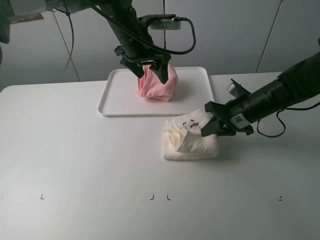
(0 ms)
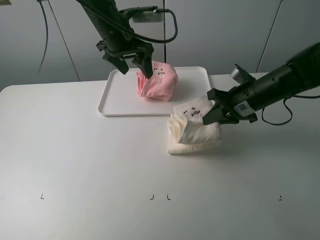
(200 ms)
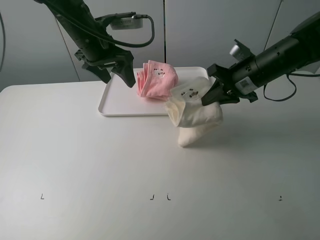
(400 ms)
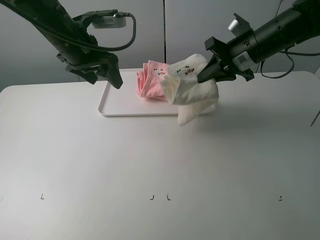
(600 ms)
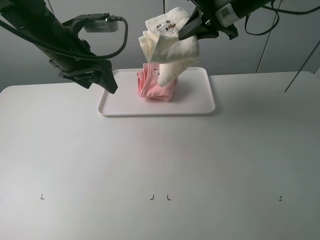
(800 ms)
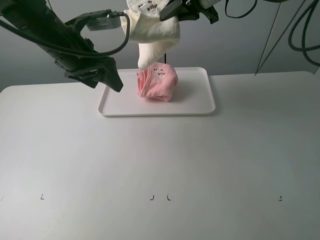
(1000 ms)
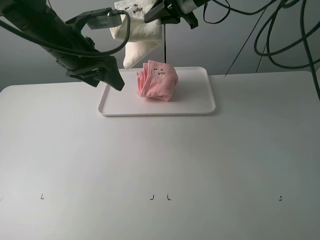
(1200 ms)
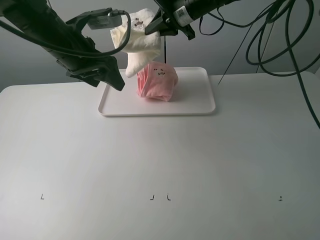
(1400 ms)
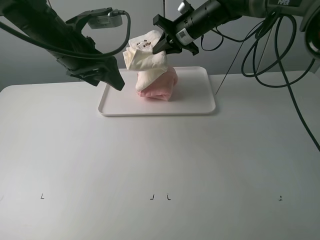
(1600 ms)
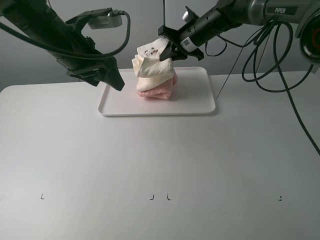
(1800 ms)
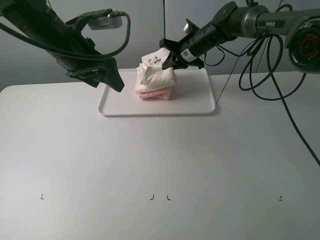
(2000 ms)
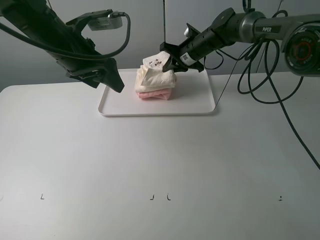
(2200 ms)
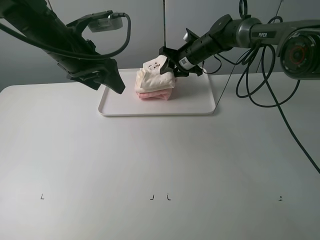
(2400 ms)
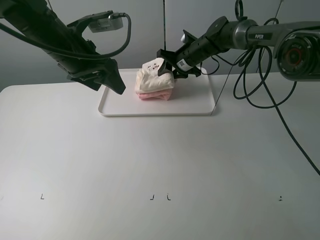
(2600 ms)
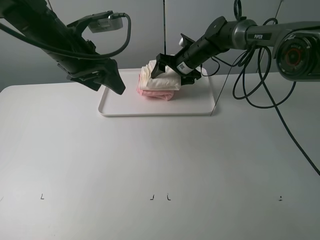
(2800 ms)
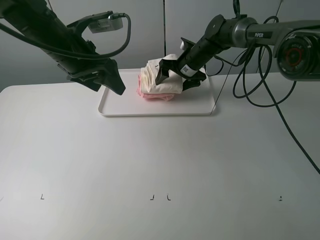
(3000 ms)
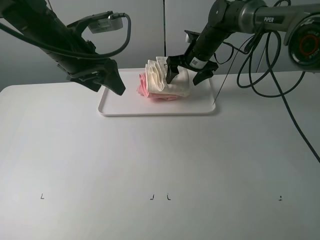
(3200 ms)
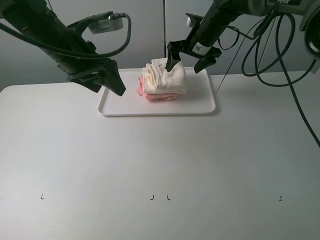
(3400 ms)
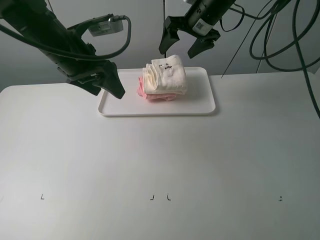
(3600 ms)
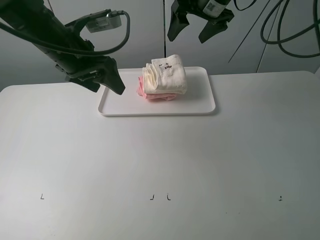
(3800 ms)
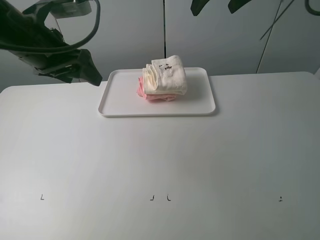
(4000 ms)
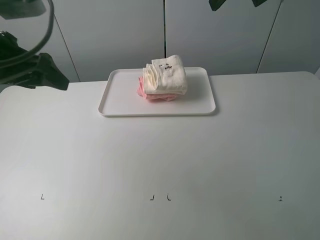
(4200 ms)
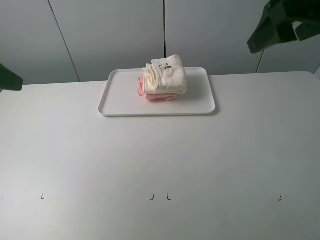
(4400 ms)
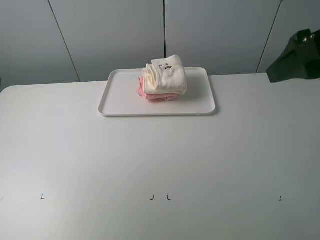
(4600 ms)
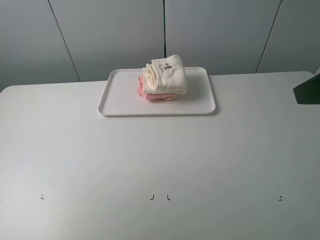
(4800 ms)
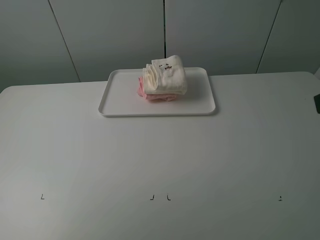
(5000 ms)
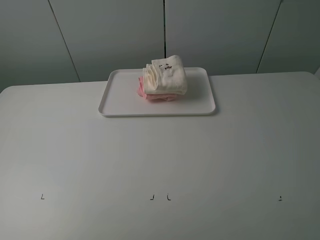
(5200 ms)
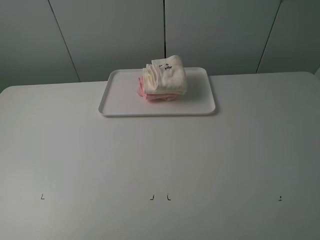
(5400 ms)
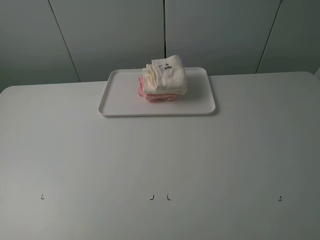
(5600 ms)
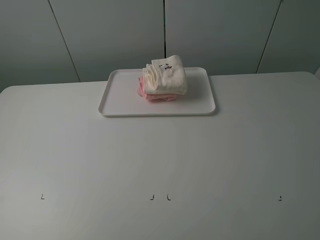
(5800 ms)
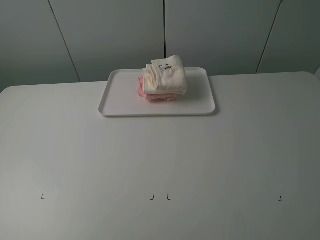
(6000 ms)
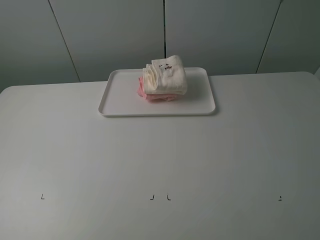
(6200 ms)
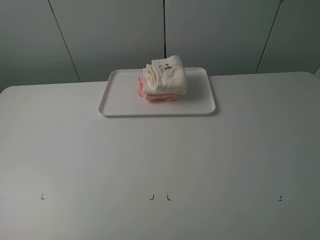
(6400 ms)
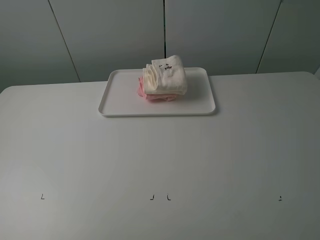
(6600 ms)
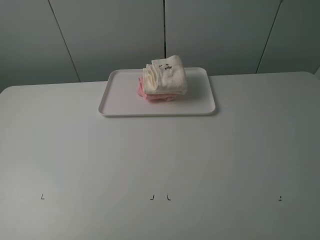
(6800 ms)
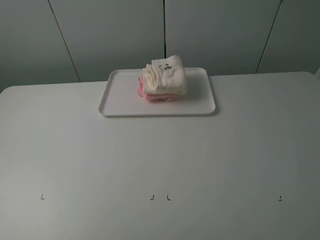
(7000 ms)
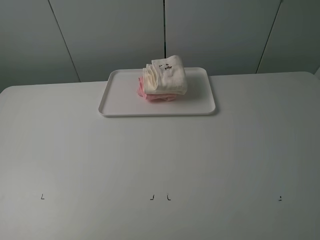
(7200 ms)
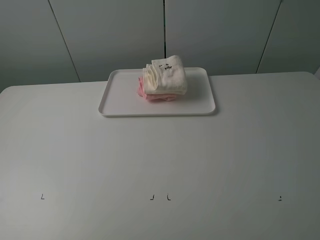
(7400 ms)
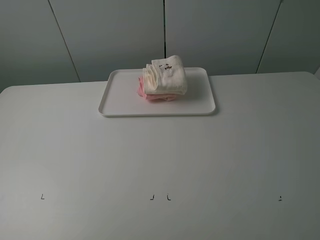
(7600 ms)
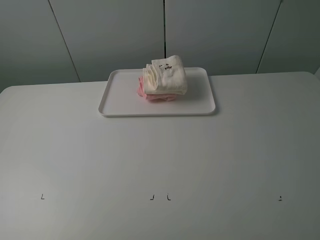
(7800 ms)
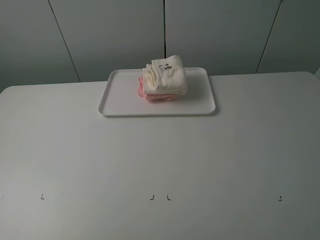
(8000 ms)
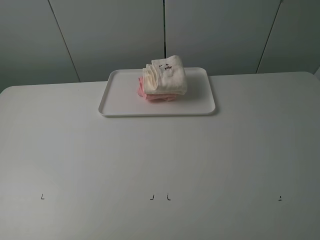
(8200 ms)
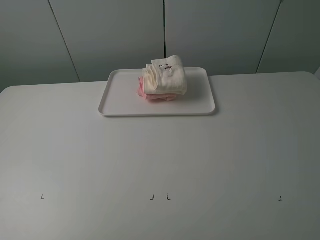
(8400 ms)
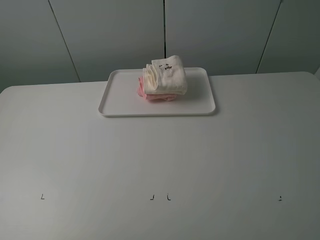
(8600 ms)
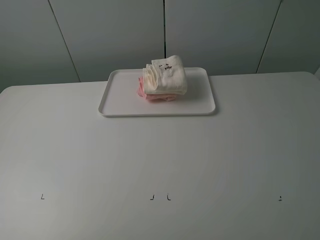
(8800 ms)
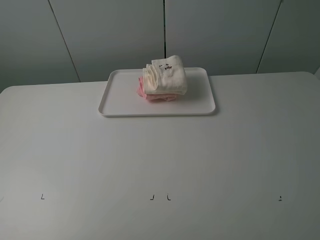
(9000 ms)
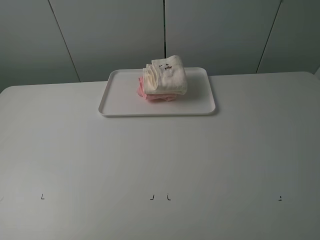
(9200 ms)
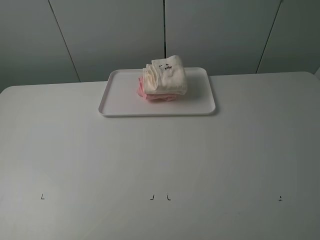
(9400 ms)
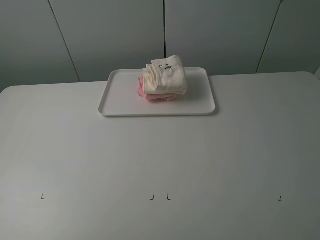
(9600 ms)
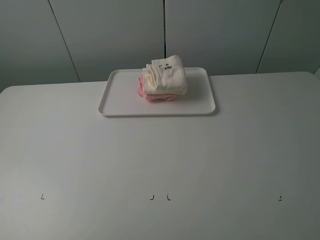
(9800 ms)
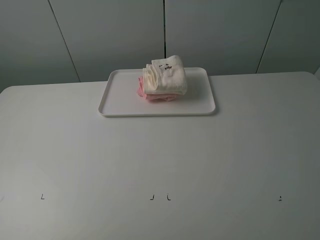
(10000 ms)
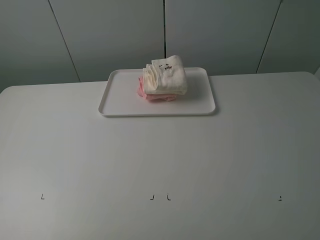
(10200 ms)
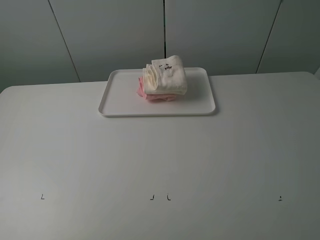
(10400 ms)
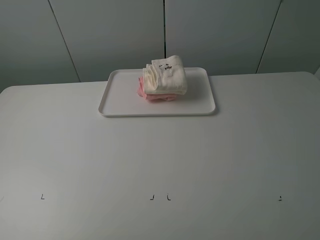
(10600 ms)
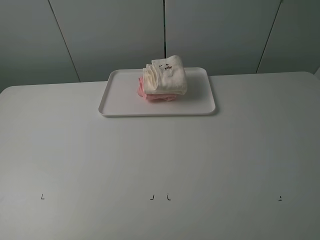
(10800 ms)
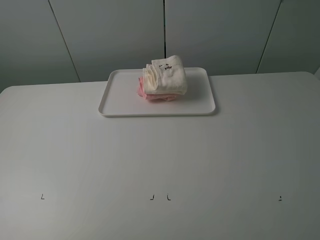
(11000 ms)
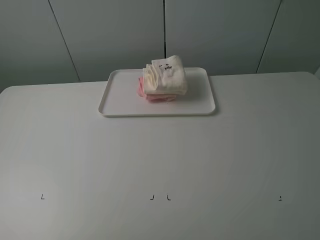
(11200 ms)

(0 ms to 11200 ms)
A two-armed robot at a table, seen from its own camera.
Task of the whole recording: fold one of the towels by two grippers and place it on the tray,then fold another towel by two grippers and place it on the folded towel.
Step, 0 ms - 3400 ms: Place the white towel on the pink towel with the right gripper.
0 ms - 1600 ms: The left gripper goes roughly 15 cm to the left and backward, while the right gripper heads forward, to the left and upward, covering some 25 cm.
1600 ms - 3200 ms: The right gripper opens its fingers.
3200 ms - 4800 ms: The right gripper moves backward and upward, about 40 cm, while the left gripper heads backward, to the left and upward, covering approximately 25 cm.
4800 ms - 6400 ms: Both grippers travel together backward and downward, roughly 15 cm.
8000 ms - 9600 ms: Both grippers stay put.
9600 ms - 11200 ms: Neither gripper changes place.

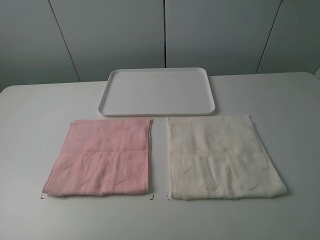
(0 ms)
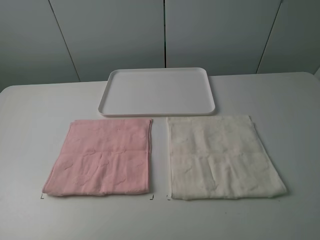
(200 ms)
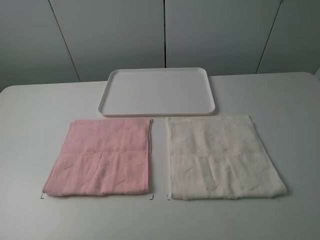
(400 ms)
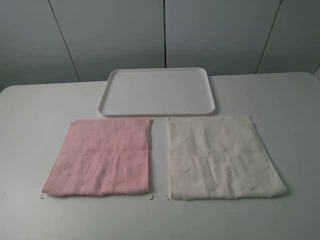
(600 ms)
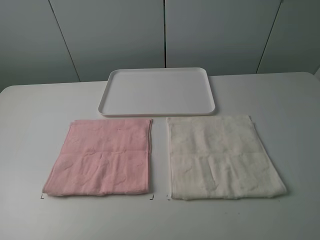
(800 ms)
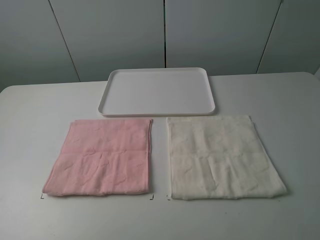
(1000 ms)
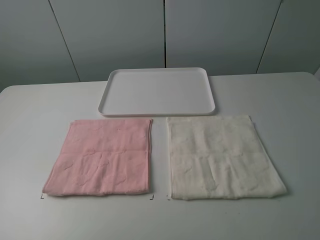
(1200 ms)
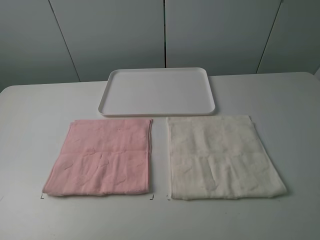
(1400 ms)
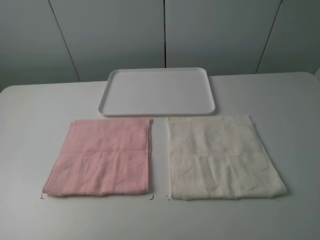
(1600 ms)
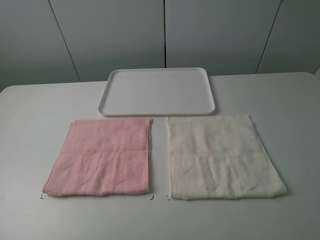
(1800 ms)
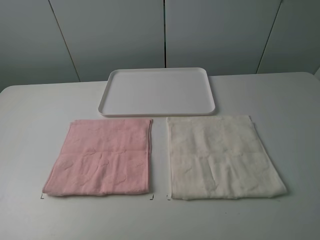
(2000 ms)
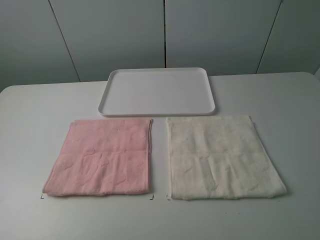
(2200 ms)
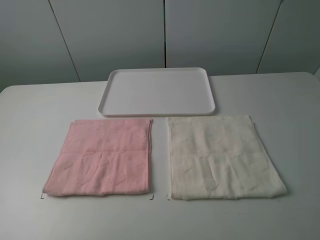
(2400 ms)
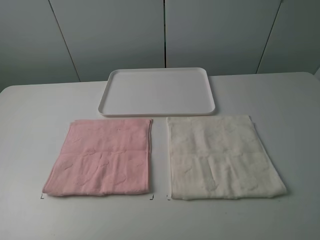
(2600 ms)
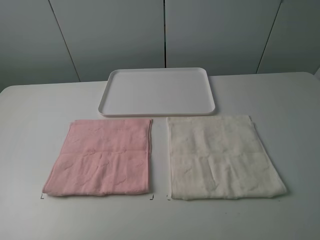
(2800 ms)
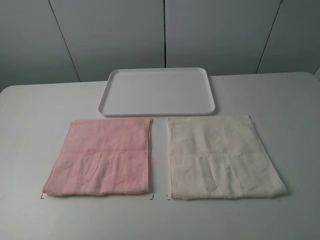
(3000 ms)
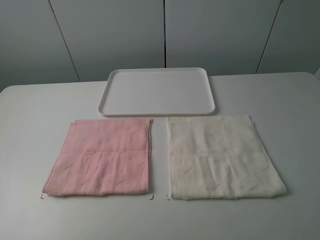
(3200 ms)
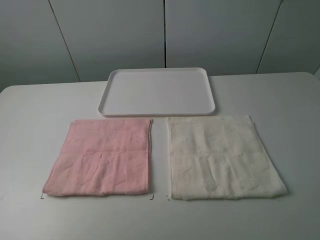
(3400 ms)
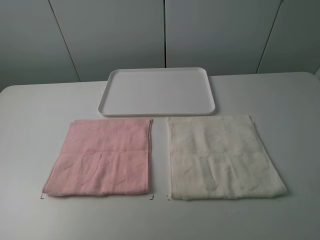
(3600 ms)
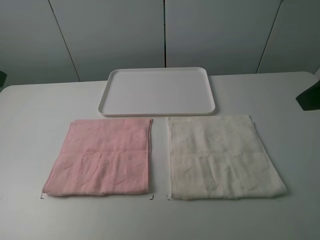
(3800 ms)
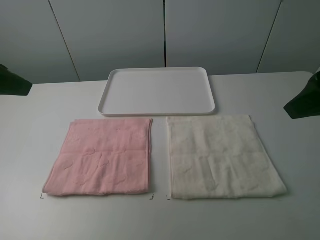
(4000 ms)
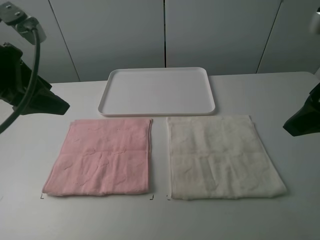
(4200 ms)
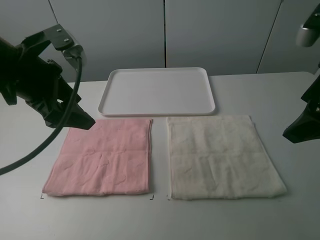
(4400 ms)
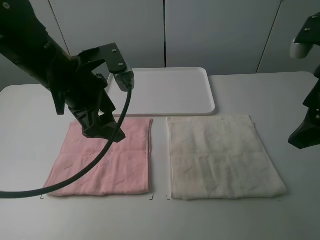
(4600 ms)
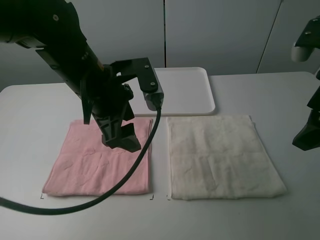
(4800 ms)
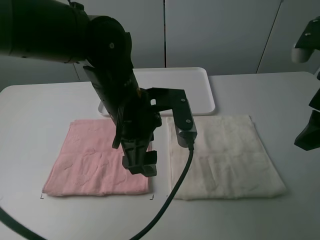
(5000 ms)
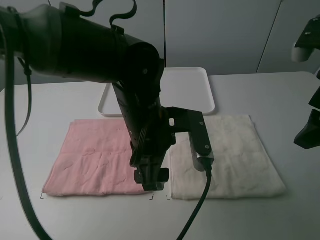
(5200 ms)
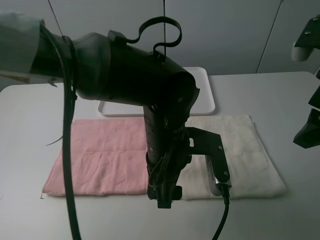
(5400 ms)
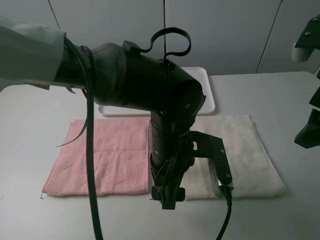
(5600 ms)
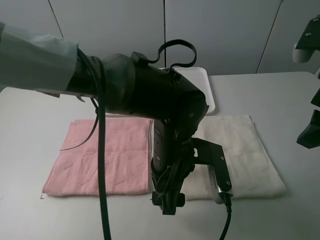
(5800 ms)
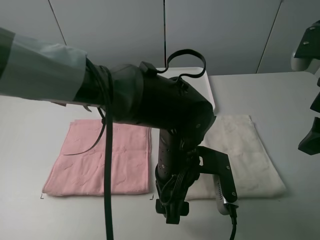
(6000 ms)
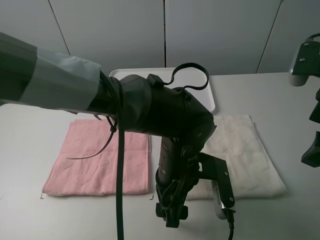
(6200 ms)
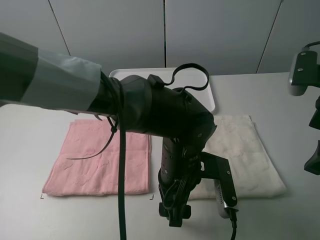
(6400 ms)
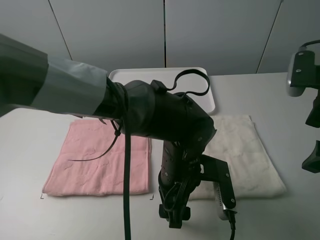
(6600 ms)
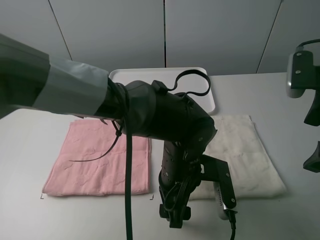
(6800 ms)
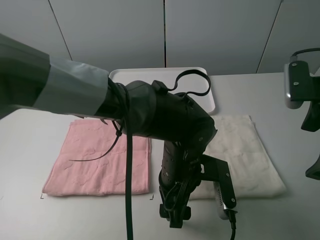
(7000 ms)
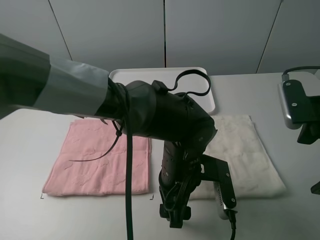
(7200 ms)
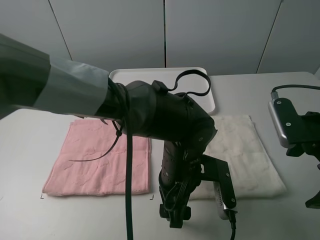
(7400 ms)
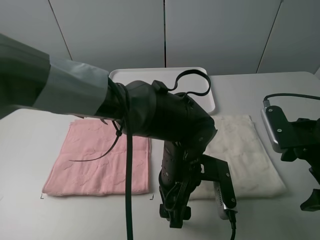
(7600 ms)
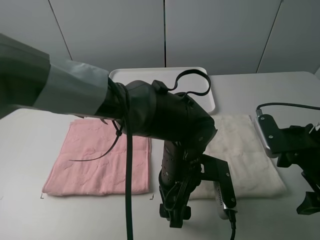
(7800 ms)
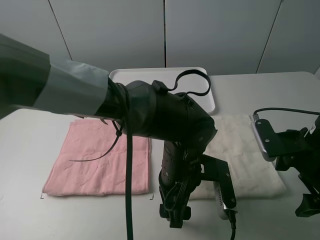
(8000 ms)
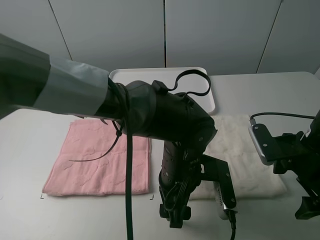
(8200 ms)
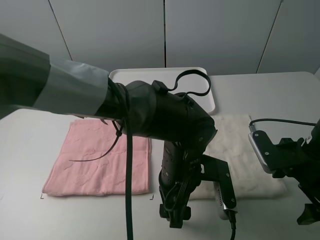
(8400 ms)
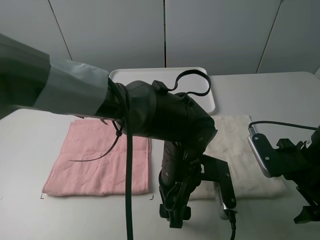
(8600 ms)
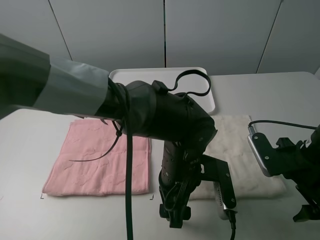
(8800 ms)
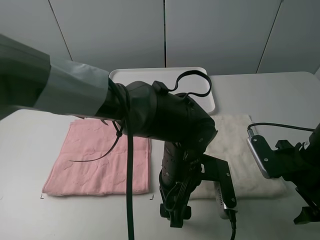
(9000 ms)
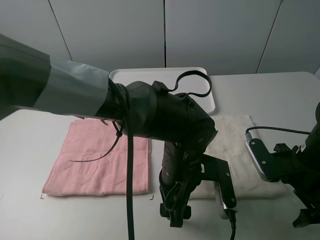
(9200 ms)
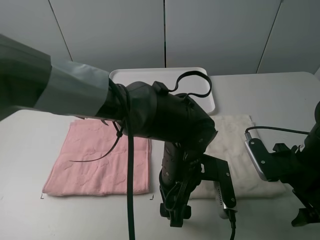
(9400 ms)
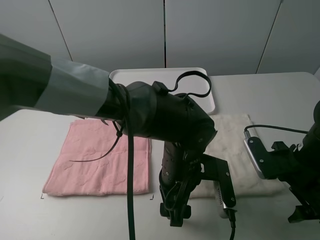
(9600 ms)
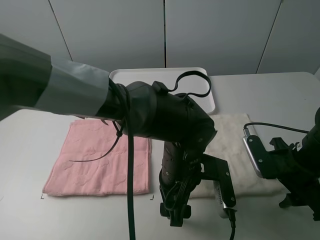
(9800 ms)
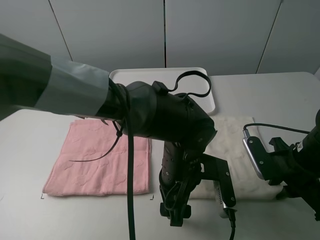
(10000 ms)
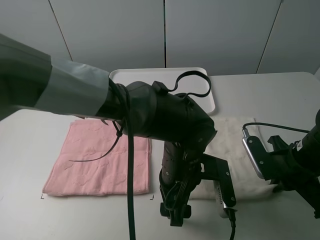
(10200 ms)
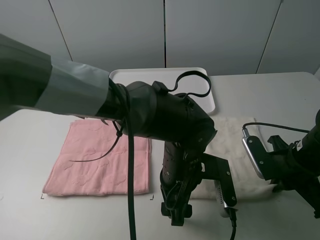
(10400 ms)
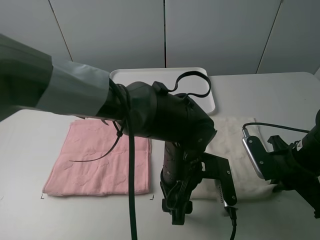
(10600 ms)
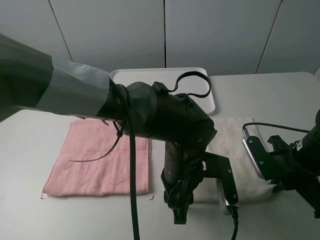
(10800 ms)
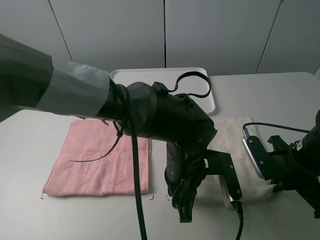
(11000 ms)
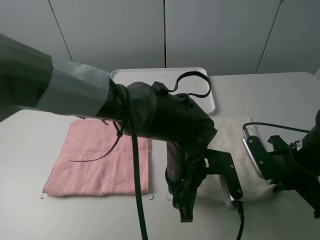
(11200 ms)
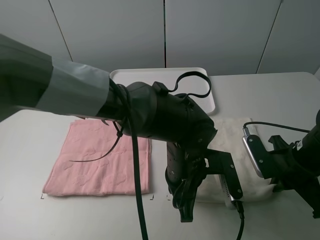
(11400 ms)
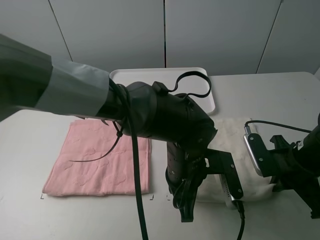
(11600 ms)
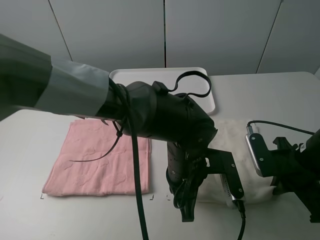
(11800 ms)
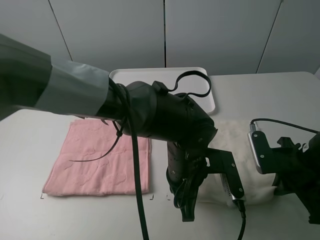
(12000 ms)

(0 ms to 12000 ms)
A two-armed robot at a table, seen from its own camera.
Task of the whole recording: fold one of the towels by two grippers and place it on the tray,then fold another towel by two grippers and place it on the folded towel.
Step, 0 ms - 10800 ms: Grasp the white towel with the left gripper.
0 ms - 1600 ms: The two grippers keep their place.
3000 ms - 4400 ms: The left gripper goes about 30 cm forward and to the right. Meanwhile the right gripper heads forward, covering some 20 cm.
4400 ms - 6000 ms: The left gripper shifts some 25 cm to the right and downward.
6000 ms - 7600 ms: The right gripper shifts roughly 10 cm downward.
7600 ms - 9000 ms: The right gripper goes some 5 cm downward.
9000 ms - 10400 ms: The right gripper closes.
10400 ms - 12000 ms: The left gripper closes its fingers.
